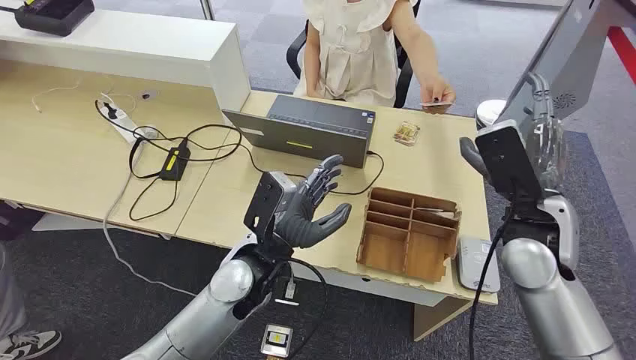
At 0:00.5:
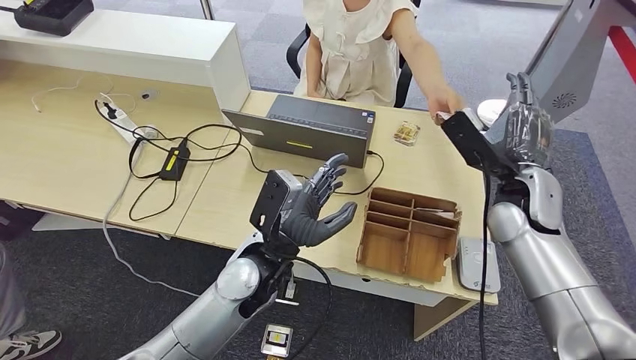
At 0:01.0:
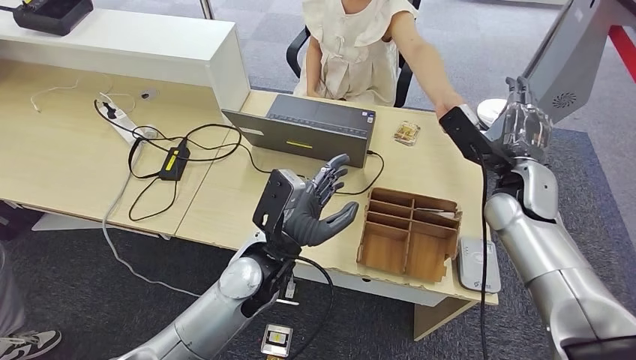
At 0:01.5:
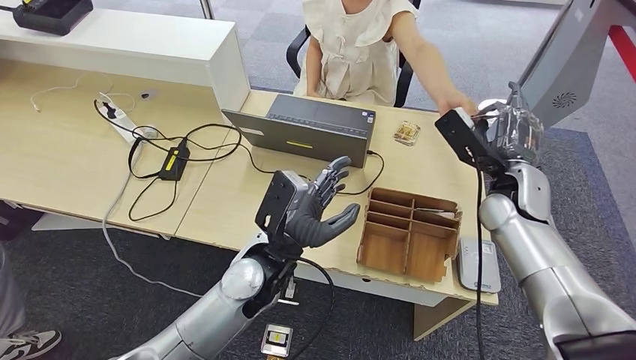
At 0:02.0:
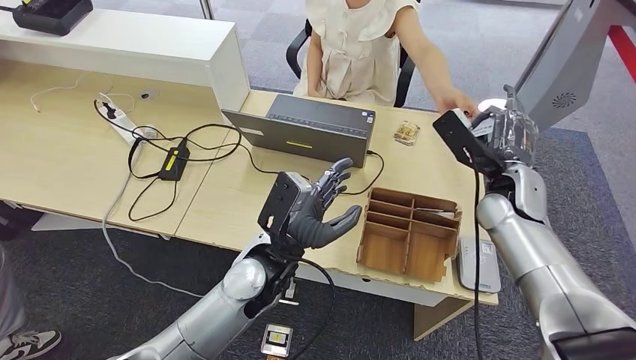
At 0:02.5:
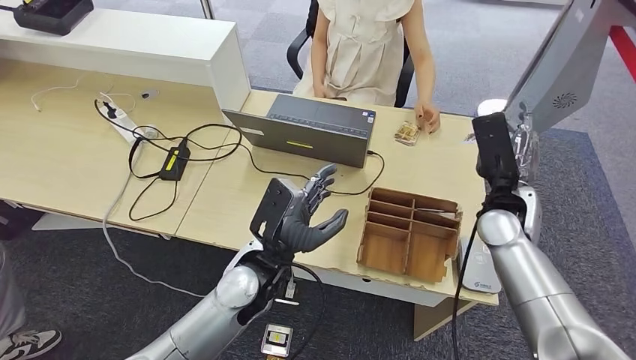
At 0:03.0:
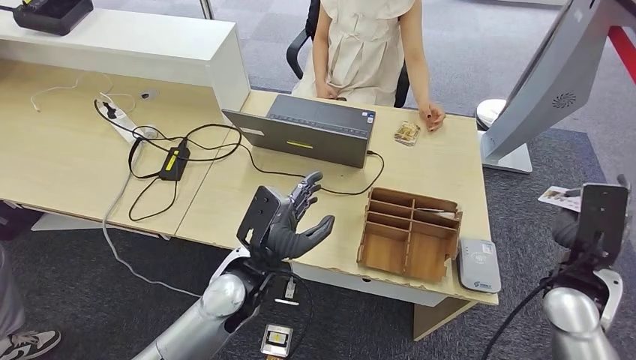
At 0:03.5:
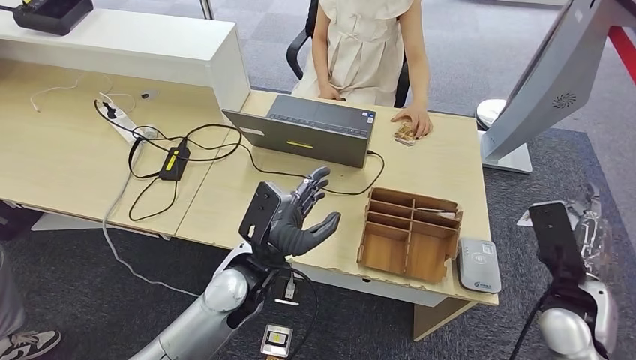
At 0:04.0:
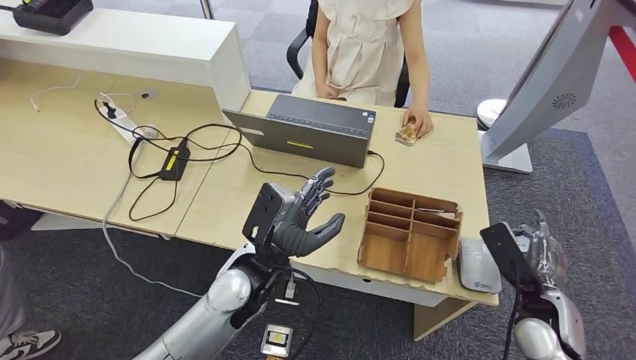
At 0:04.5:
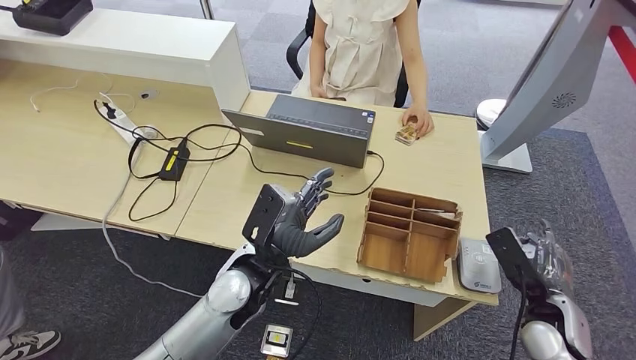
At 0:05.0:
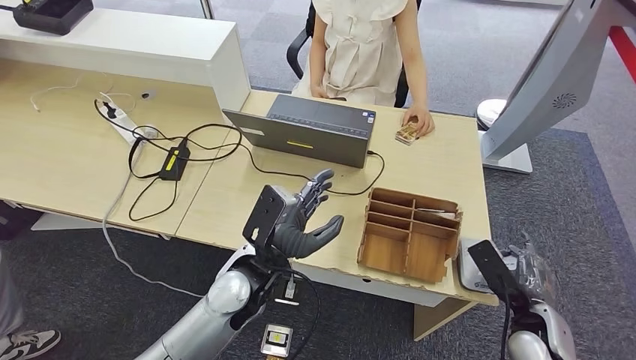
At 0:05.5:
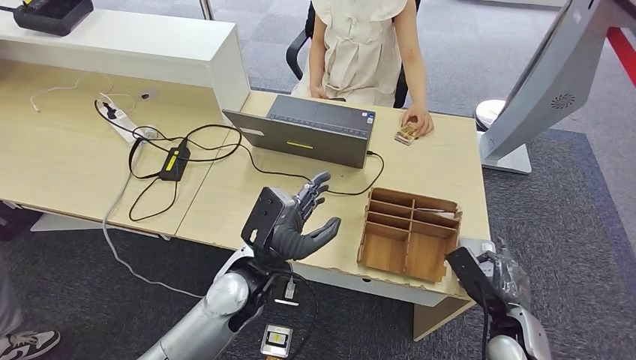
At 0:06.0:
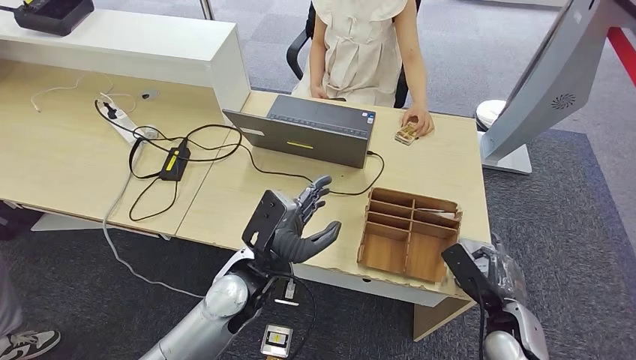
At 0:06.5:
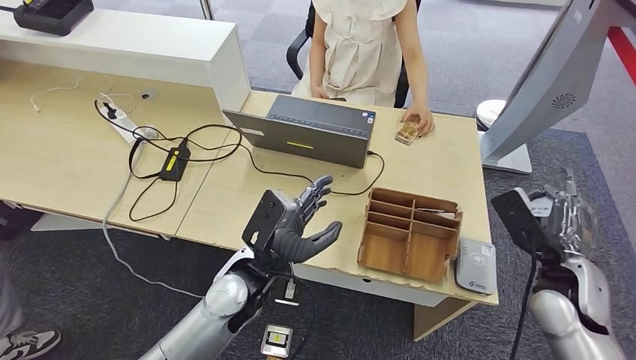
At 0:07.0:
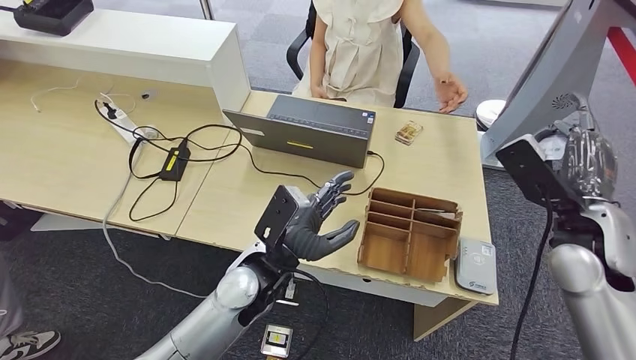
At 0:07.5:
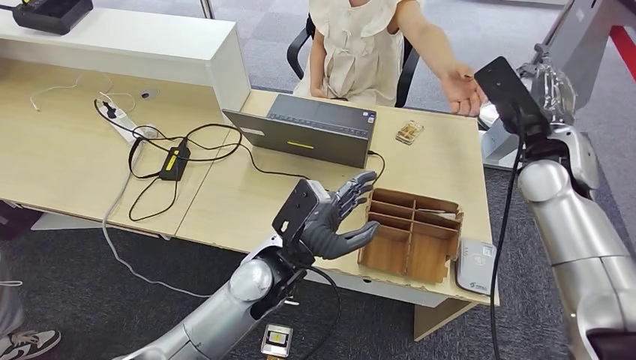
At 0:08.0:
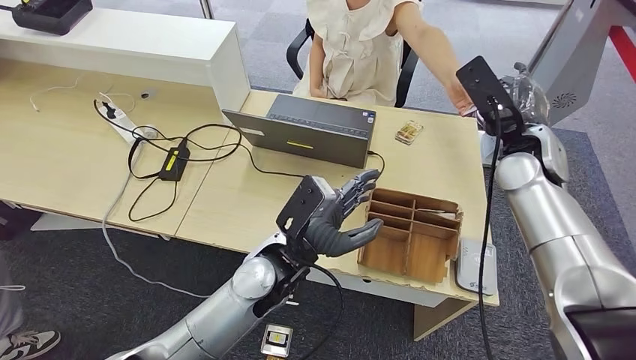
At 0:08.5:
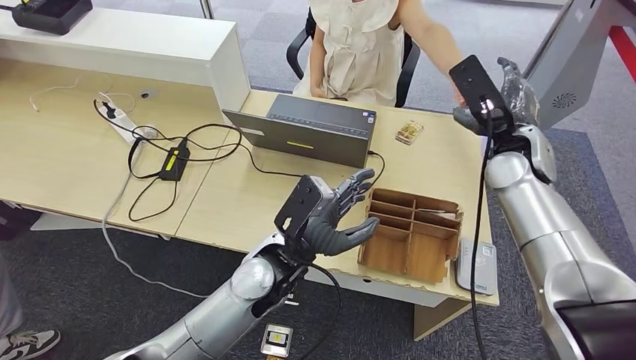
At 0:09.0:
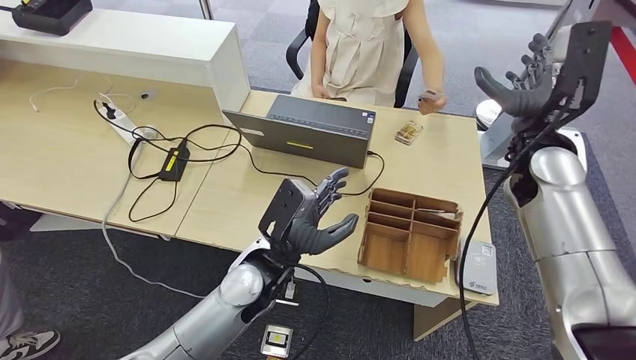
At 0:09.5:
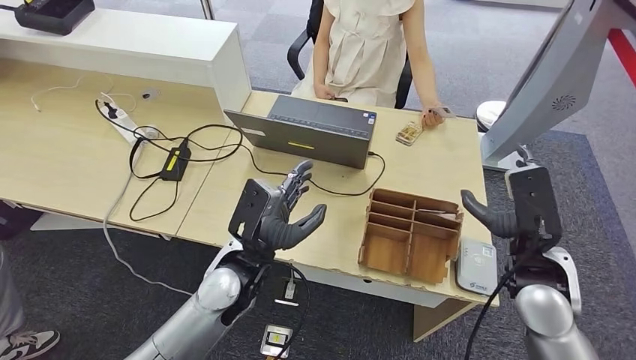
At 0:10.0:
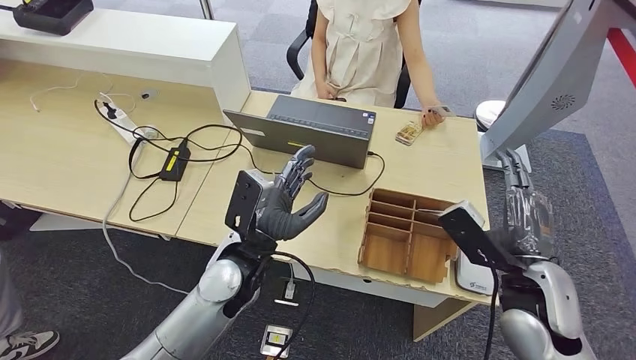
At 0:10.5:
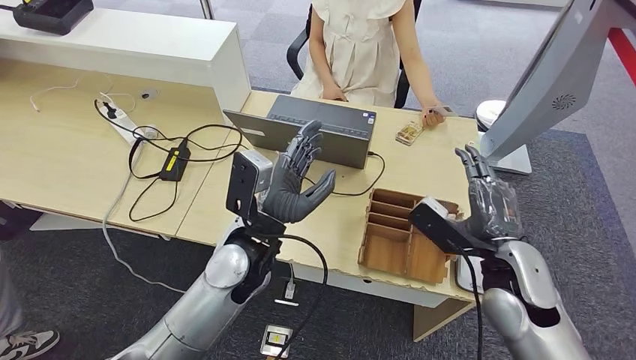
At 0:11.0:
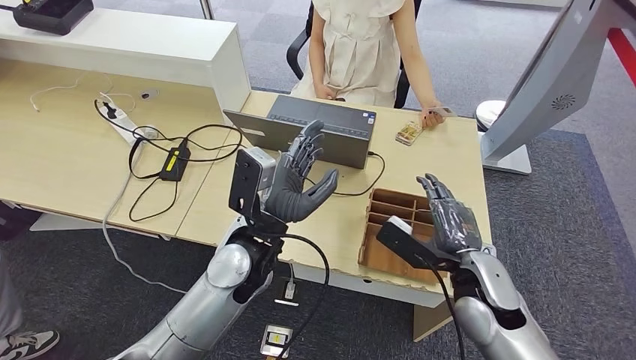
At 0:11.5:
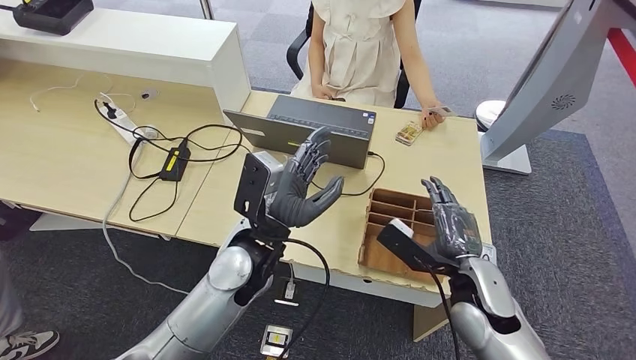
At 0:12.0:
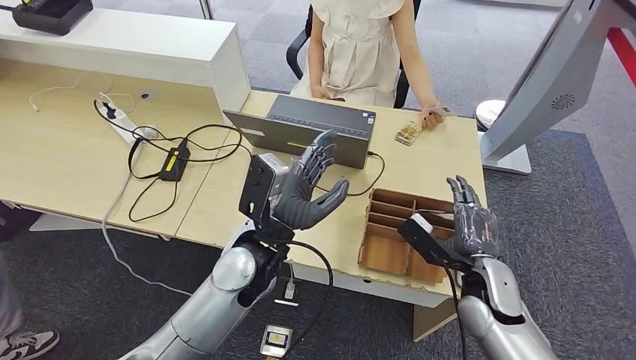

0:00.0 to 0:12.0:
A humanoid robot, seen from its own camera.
Step, 0:00.0 to 0:02.5: Take the ID card from the person's hand.
Step, 0:03.5 to 0:06.0: Place the ID card on the card reader.
Step, 0:07.0 to 0:09.0: Hand the ID card to the person.
0:02.0 to 0:04.0: The right hand moves backward, downward and to the right, roughly 20 cm.
0:04.0 to 0:06.0: The right hand ends up roughly 5 cm from where it was.
0:10.0 to 0:12.0: The right hand heads downward, covering approximately 10 cm.

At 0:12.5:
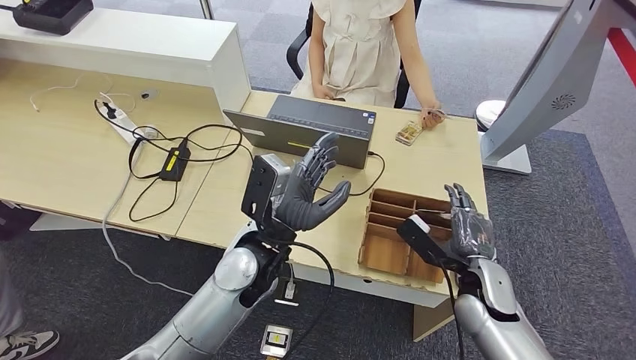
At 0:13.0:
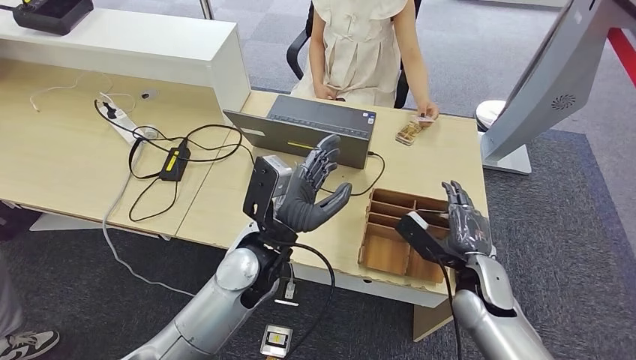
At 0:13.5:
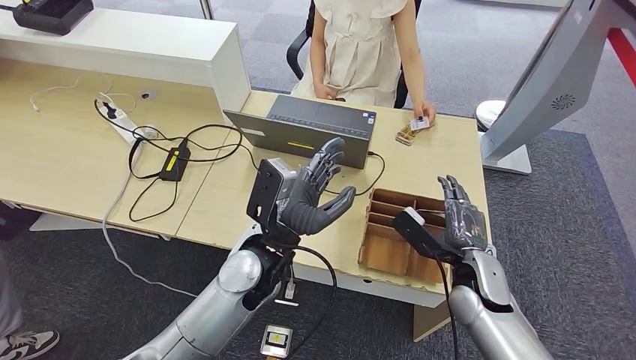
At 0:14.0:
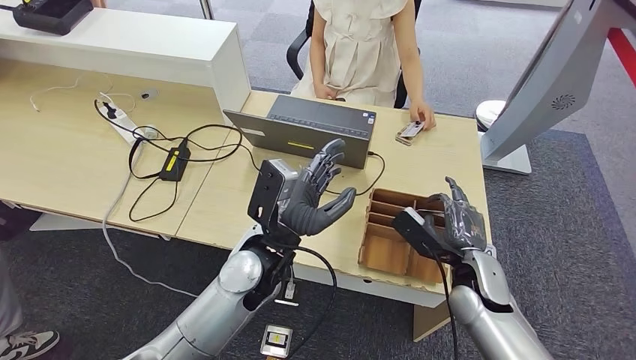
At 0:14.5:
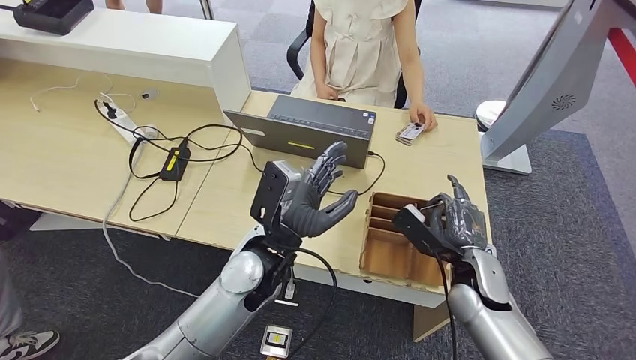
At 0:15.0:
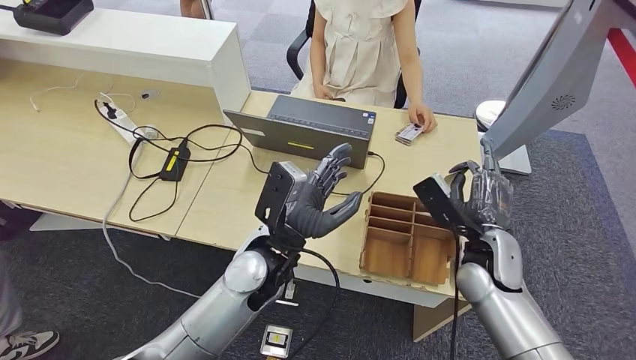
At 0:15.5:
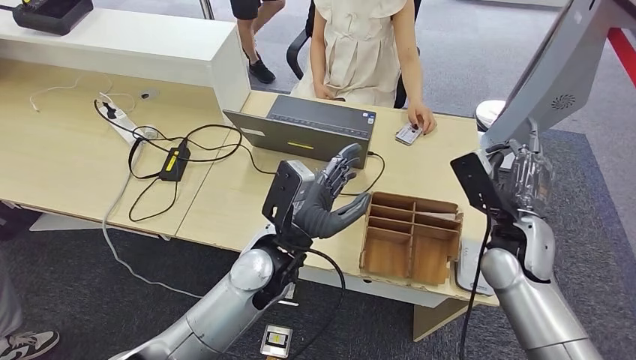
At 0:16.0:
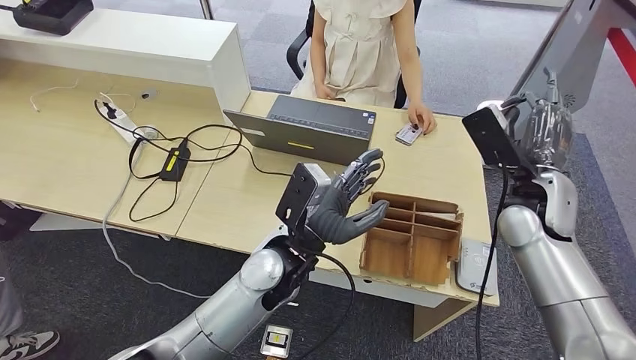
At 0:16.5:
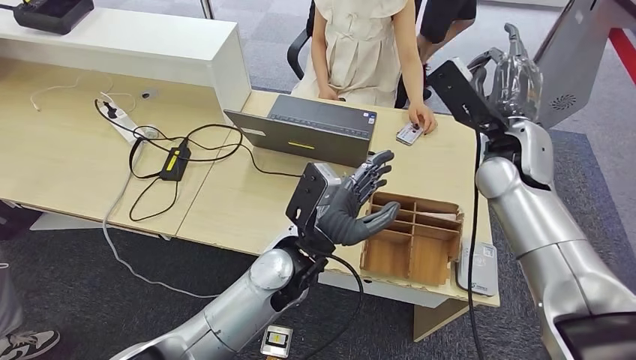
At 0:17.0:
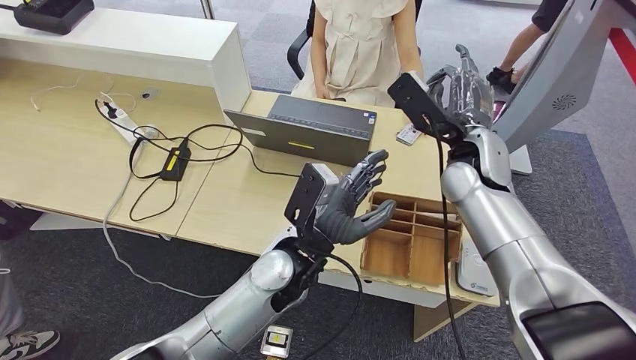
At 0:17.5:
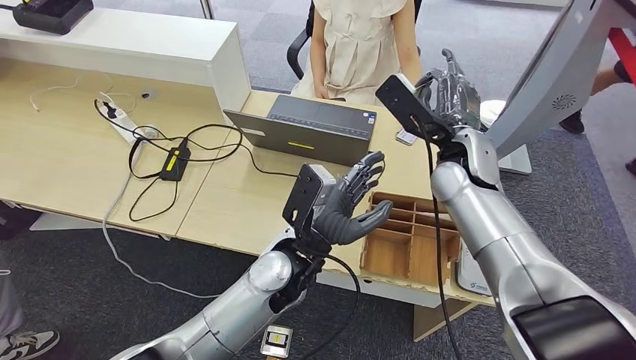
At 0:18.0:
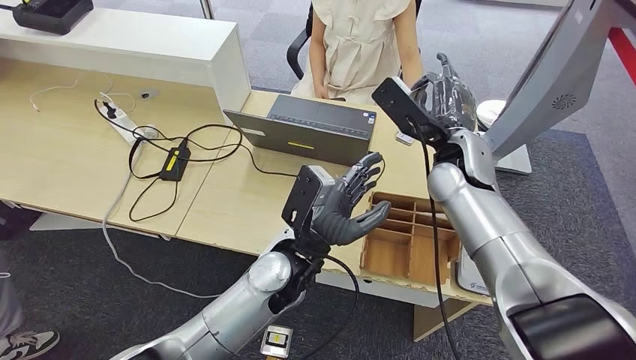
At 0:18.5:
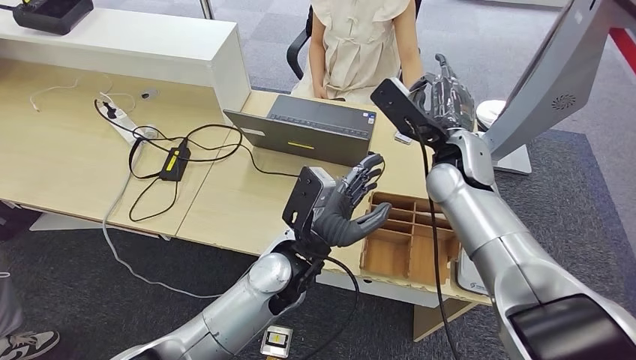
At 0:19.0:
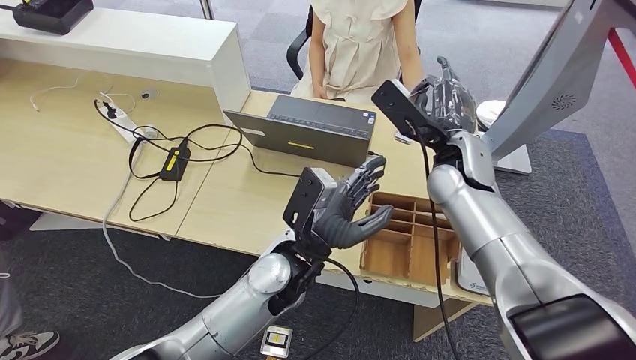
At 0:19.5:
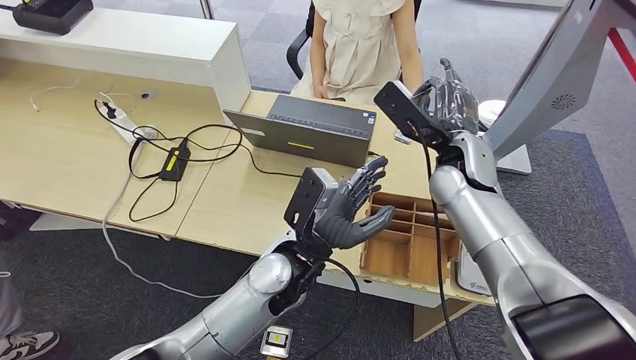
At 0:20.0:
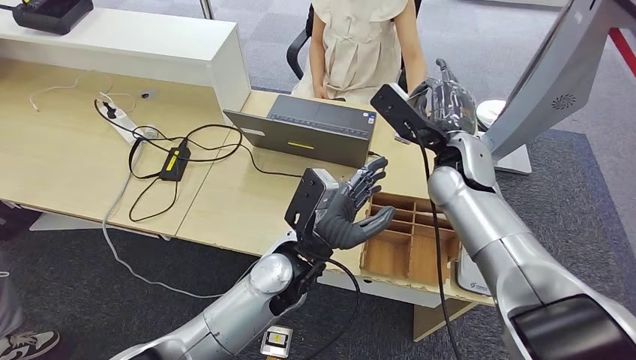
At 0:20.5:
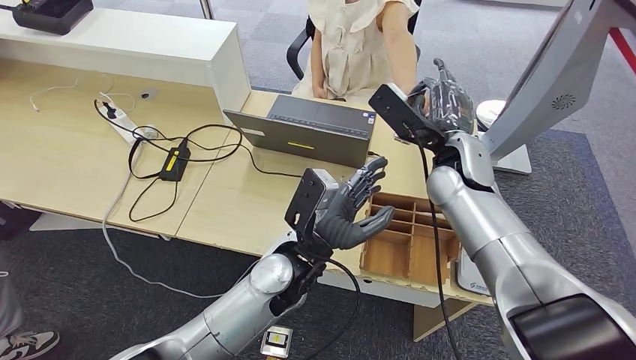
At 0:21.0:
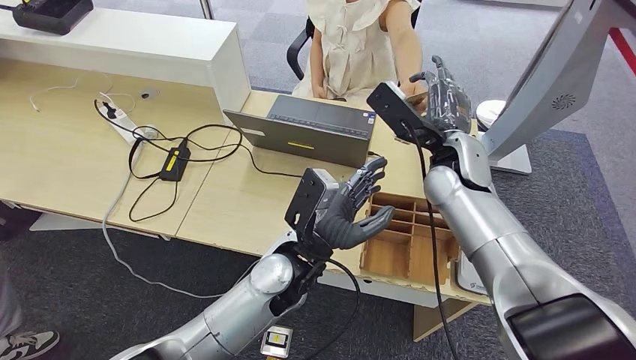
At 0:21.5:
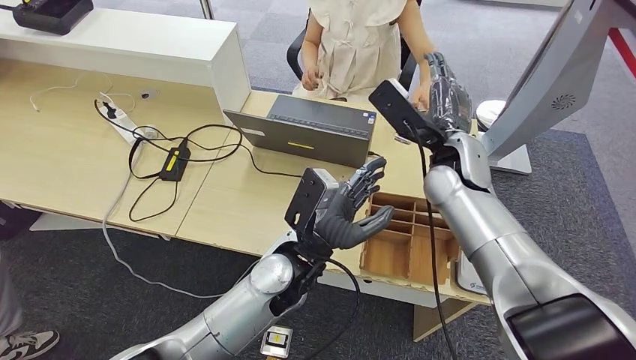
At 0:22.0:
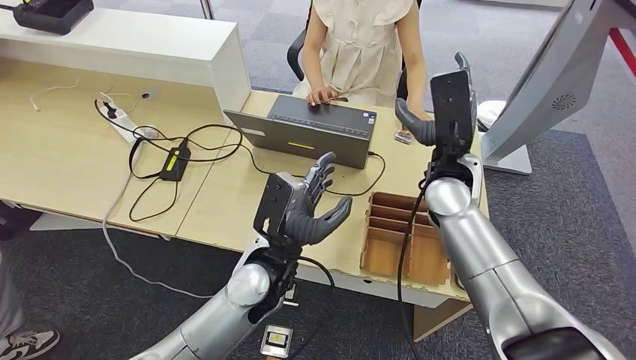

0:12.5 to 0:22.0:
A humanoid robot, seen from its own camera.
Step, 0:13.5 to 0:15.5: Pick up the room key from the key card box.
Step, 0:16.0 to 0:22.0: Hand the room key to the person.
0:12.5 to 0:14.5: The hands move only a little.
0:18.0 to 0:20.0: Both hands stay about where they are.
